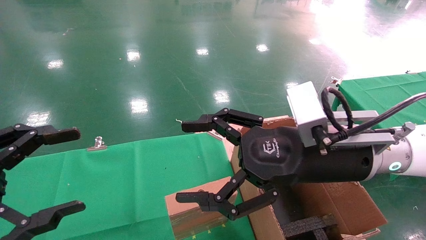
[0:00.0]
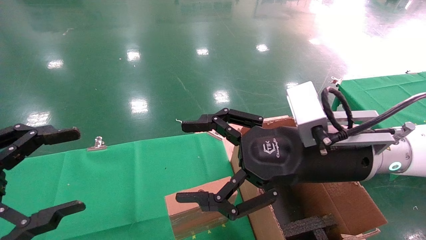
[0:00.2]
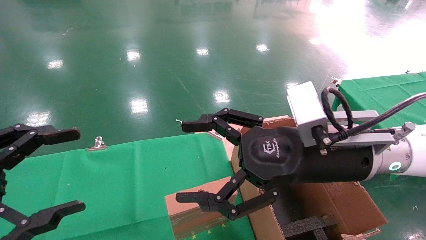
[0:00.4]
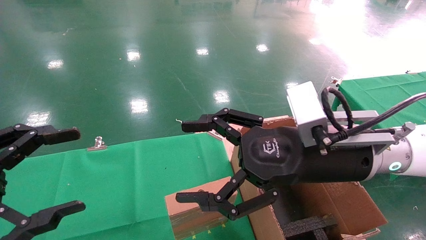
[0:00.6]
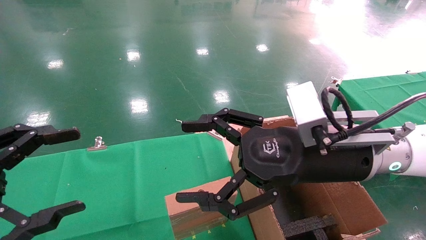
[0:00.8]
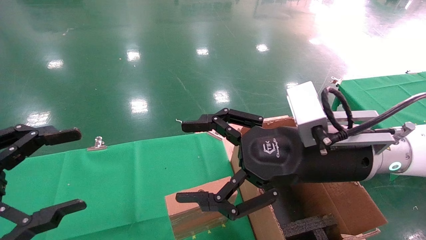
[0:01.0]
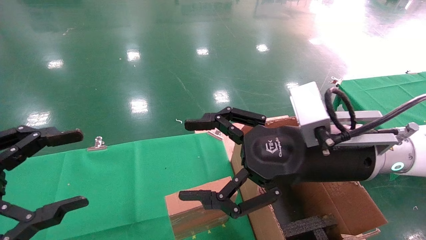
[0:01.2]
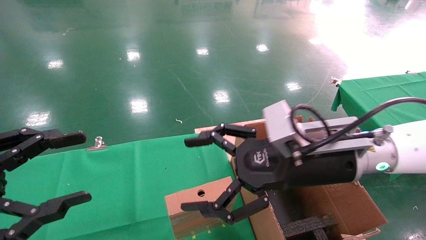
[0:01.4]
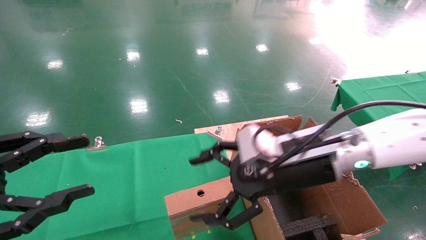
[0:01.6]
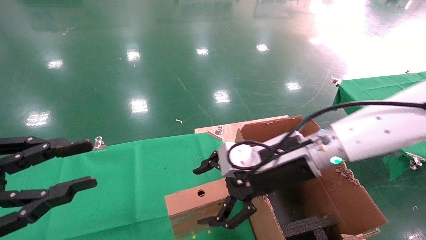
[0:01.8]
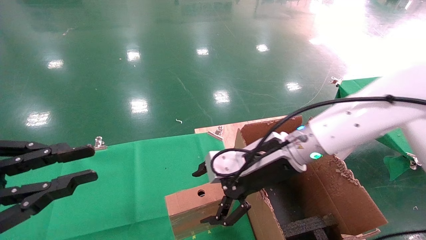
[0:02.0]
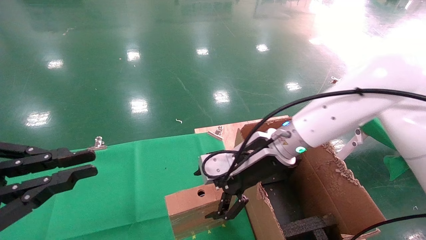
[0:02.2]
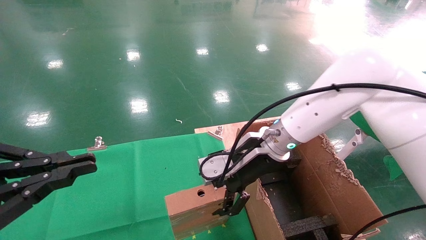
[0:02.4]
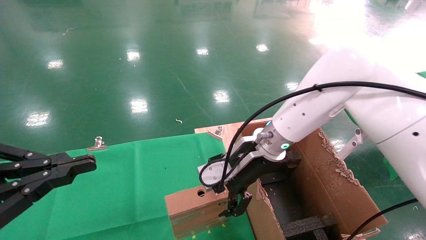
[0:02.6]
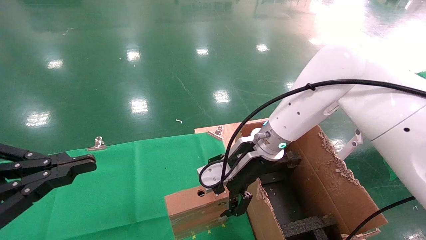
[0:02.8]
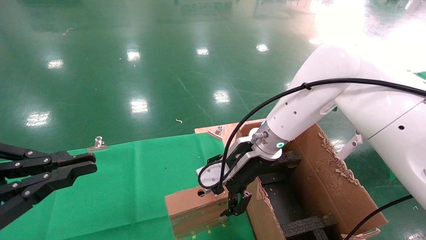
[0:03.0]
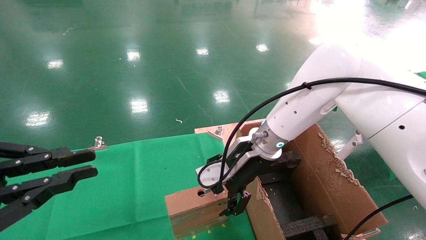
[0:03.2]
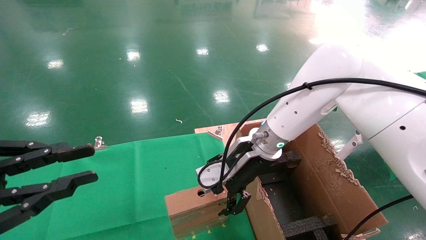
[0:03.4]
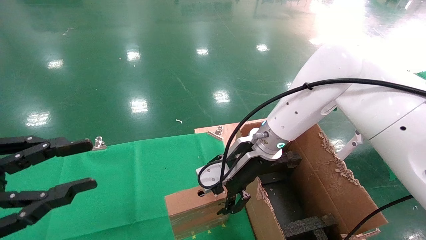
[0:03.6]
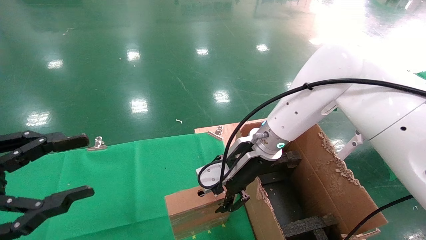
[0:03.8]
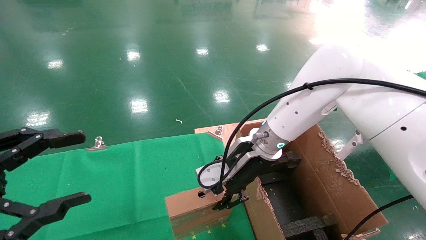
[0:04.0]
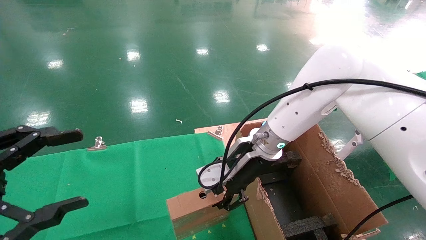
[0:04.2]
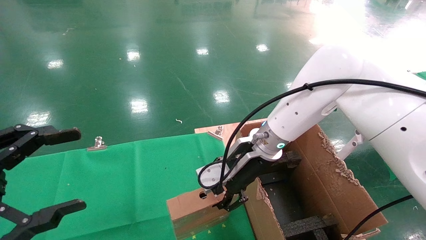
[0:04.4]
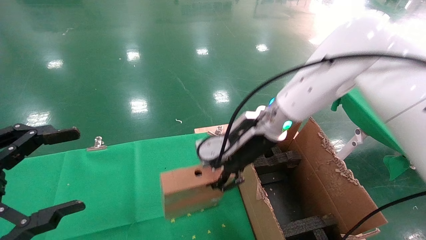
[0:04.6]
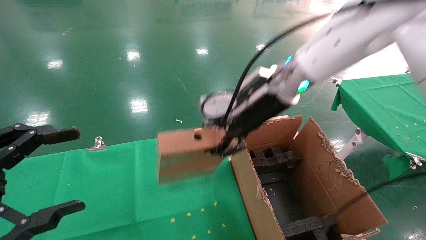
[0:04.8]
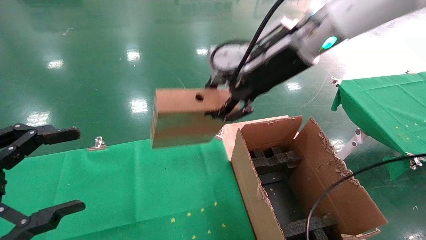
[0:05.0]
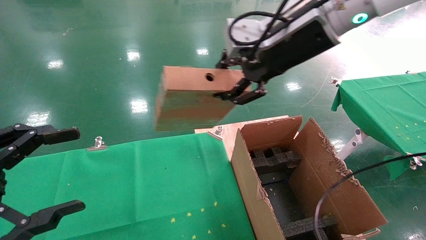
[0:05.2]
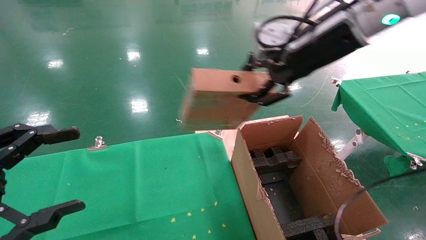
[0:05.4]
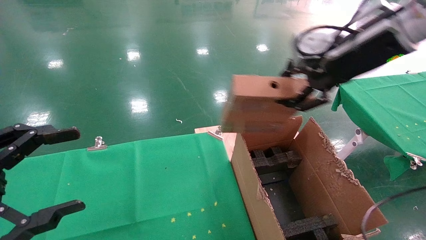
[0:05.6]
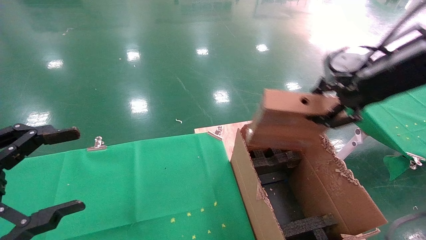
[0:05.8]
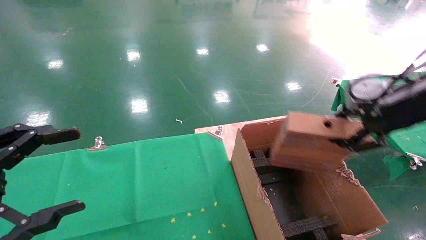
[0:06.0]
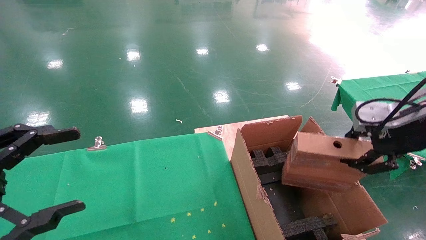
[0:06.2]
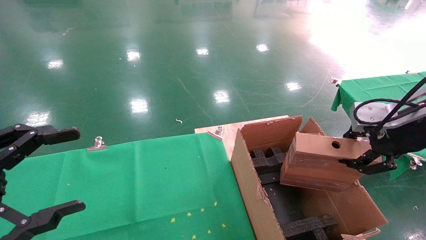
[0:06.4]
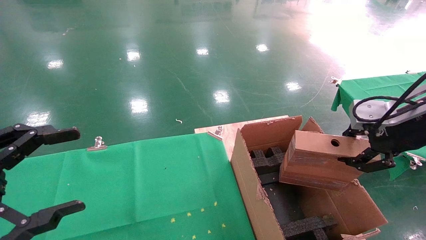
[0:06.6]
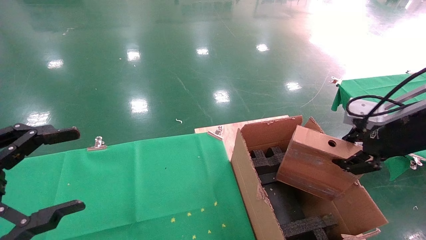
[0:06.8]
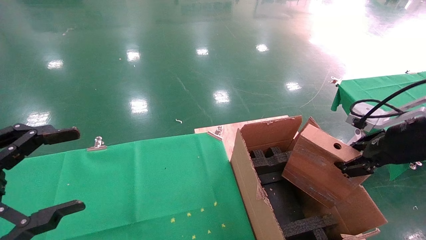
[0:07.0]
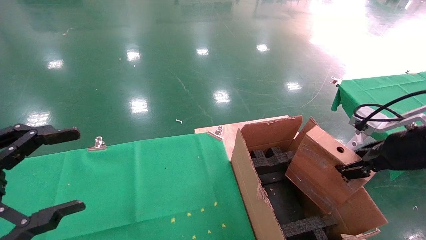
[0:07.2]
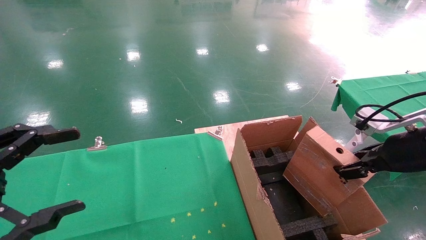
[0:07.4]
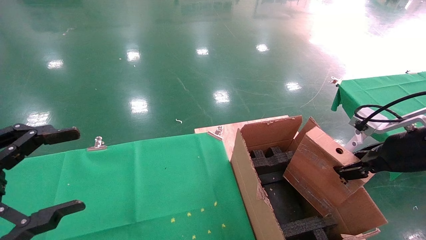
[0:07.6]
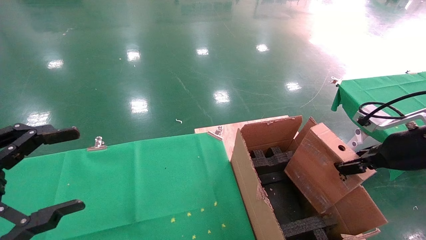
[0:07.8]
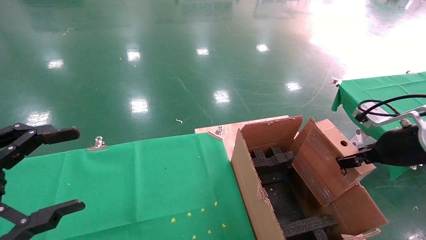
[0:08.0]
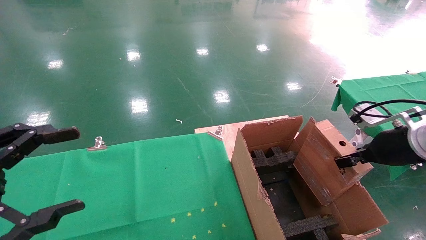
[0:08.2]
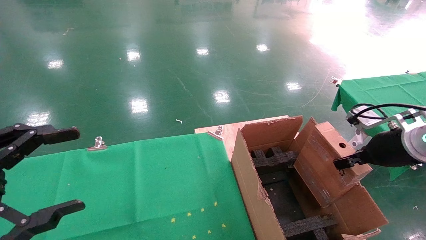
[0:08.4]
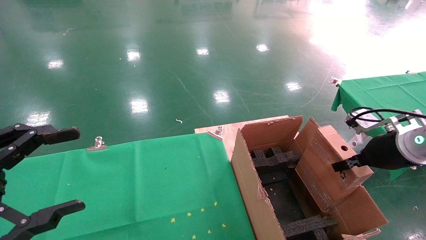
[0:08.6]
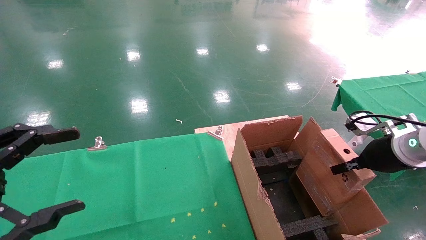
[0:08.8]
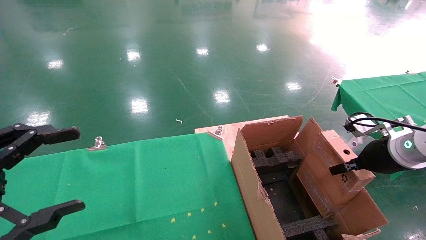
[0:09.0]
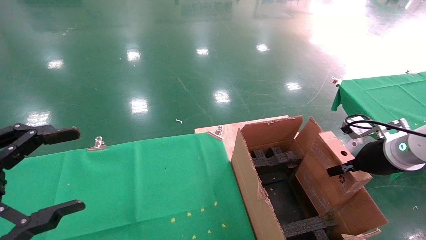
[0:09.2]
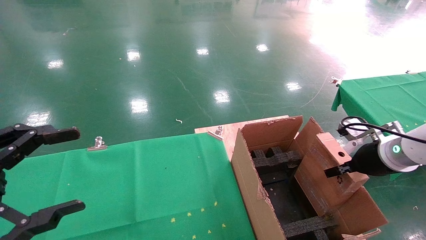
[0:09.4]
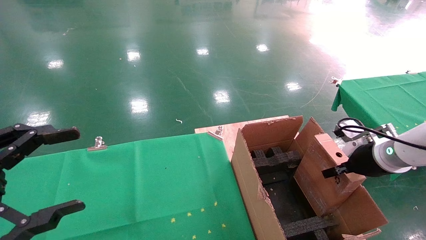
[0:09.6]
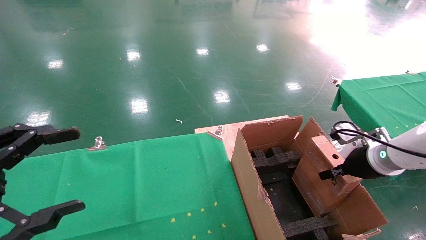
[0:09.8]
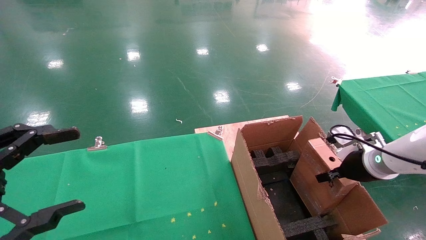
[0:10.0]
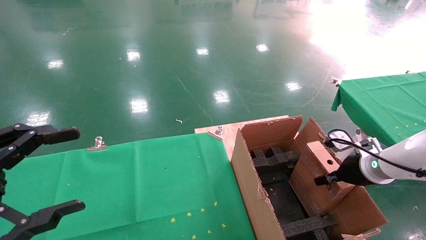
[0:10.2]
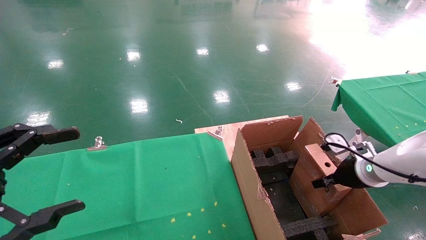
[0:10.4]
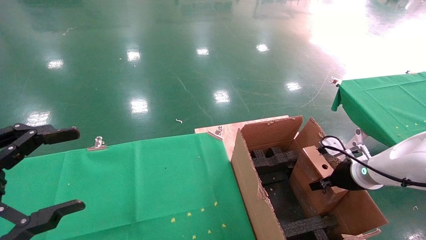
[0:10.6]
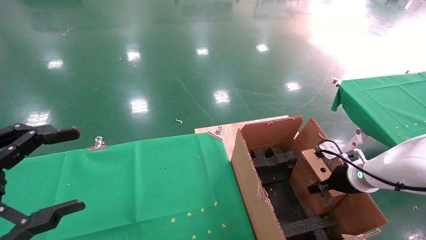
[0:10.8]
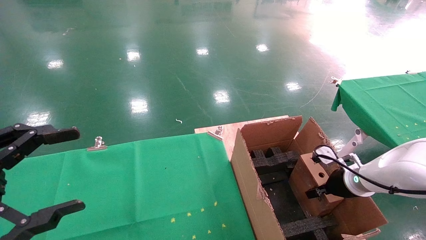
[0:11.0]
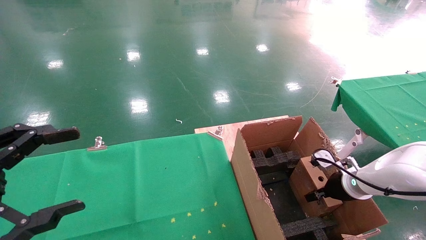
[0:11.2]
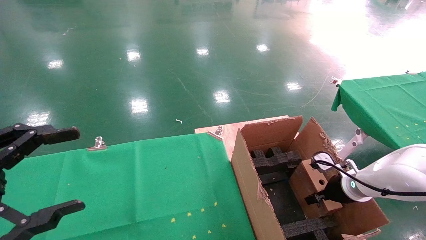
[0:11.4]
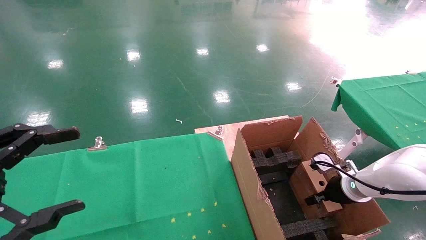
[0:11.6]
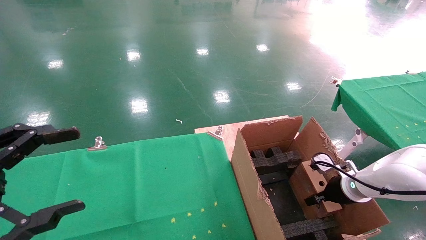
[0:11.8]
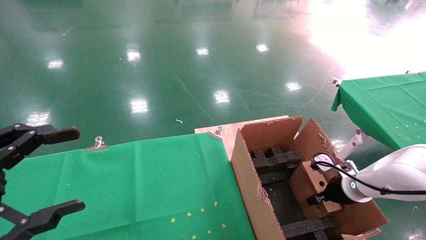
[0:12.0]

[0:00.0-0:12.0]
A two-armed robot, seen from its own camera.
Task of the whole recording: using a robotic arm to pick up a cardboard box and palace it the carton.
Step, 0:01.4 to 0:04.0: Pick up the mouse and the power cord paper box.
0:00.0 to 0:01.6: The right gripper shifts by approximately 5 cm.
0:01.6 to 0:03.0: The left gripper closes, while the right gripper moves forward, approximately 10 cm.
0:03.0 to 0:04.4: The left gripper opens its fingers. The right gripper closes.
0:04.4 to 0:06.0: The right gripper travels to the right, backward and upward by some 30 cm.
0:06.0 to 0:07.6: The right gripper is displaced downward by about 10 cm.
0:07.6 to 0:09.0: The right gripper travels forward by about 5 cm.
0:09.0 to 0:10.4: The right gripper heads downward, covering approximately 5 cm.
0:10.4 to 0:12.0: The right gripper moves downward, approximately 5 cm.

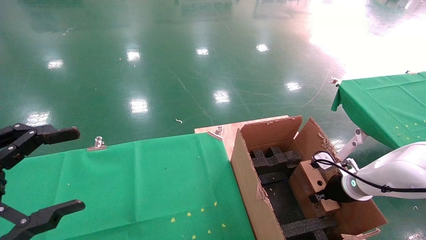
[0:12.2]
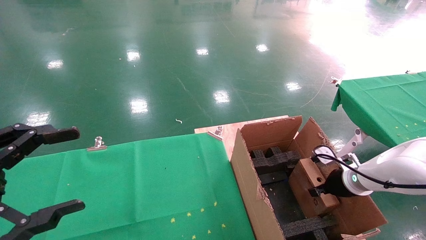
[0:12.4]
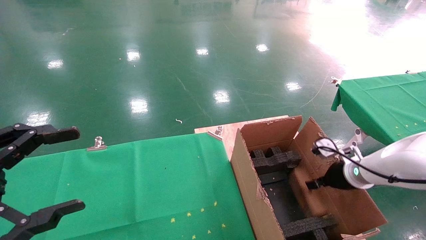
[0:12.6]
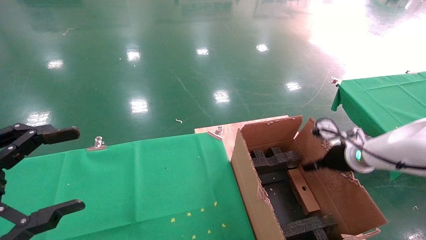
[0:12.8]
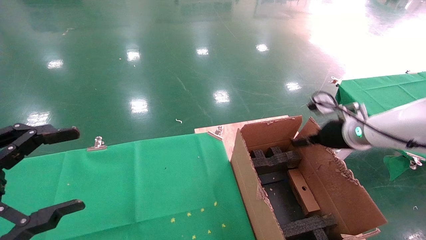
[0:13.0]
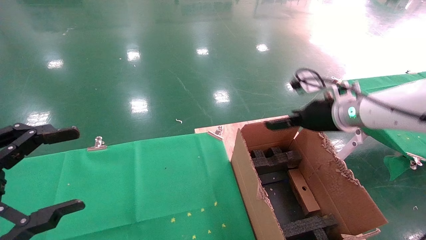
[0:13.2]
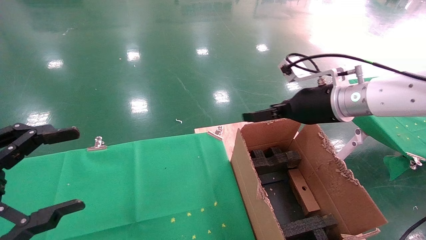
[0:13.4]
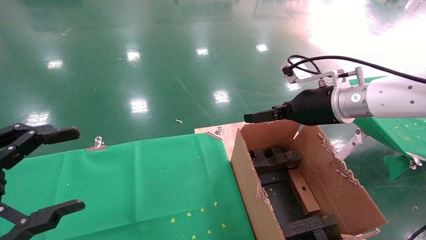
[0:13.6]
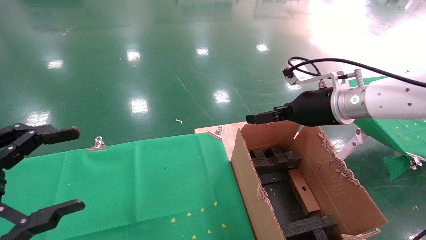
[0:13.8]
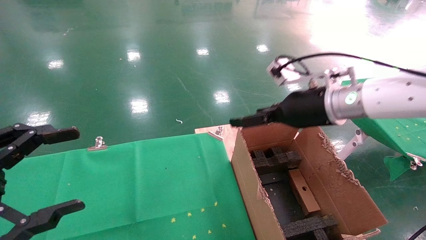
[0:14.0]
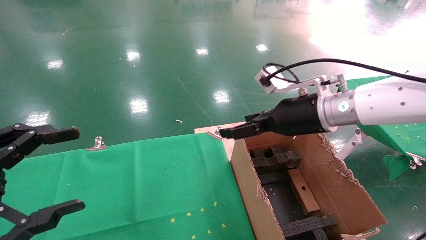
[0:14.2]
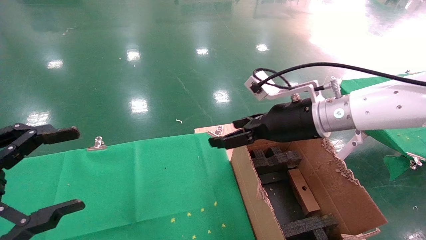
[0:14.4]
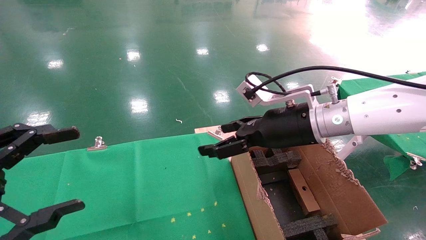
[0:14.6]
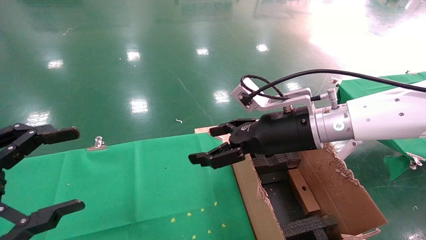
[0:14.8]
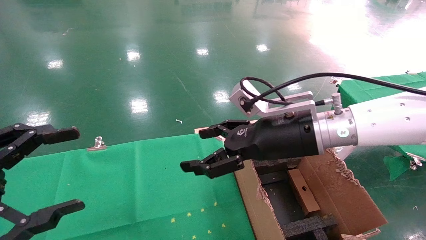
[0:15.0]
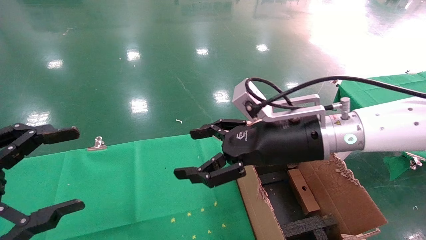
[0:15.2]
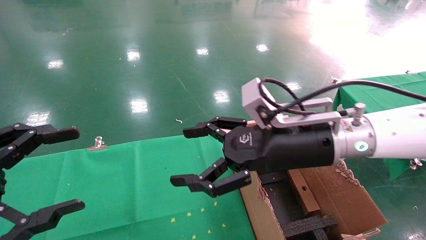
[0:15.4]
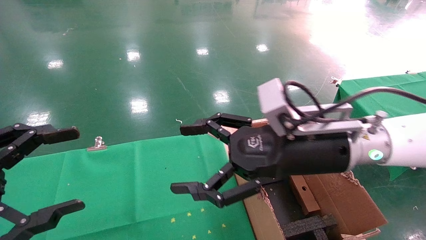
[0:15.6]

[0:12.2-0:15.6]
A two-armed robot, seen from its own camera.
Task of the whole recording: using a robotic arm to pick up a cardboard box and palace it the carton.
0:12.2 to 0:13.8: The right gripper is displaced upward and to the left by approximately 25 cm, and opens.
0:13.8 to 0:15.6: The right gripper travels backward and to the left by some 10 cm.
